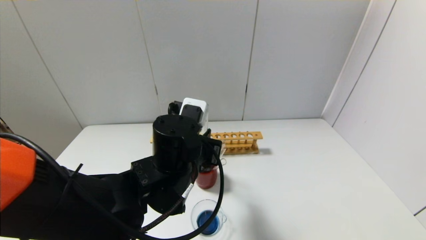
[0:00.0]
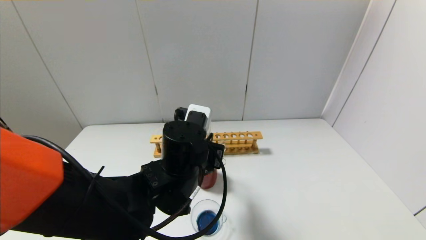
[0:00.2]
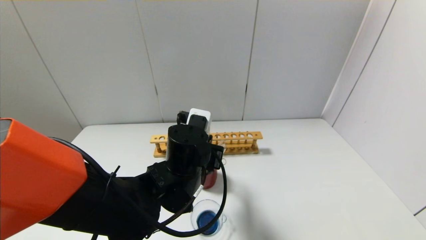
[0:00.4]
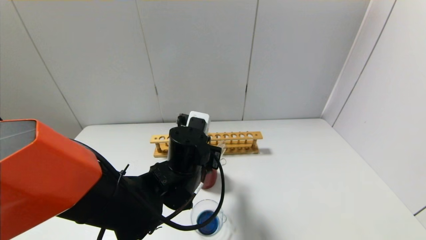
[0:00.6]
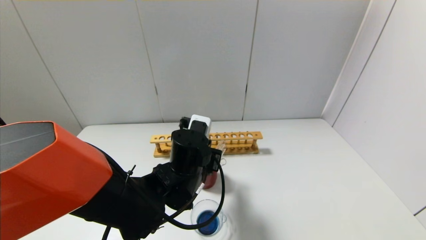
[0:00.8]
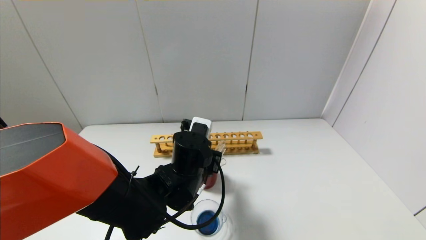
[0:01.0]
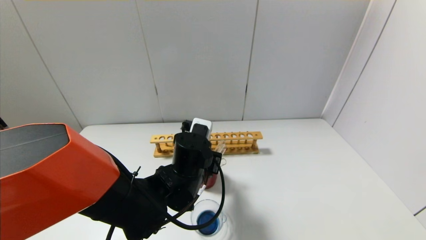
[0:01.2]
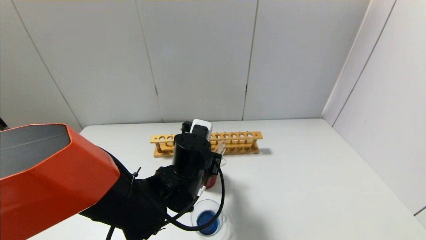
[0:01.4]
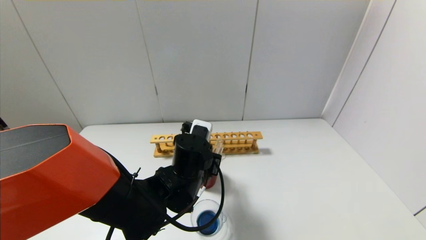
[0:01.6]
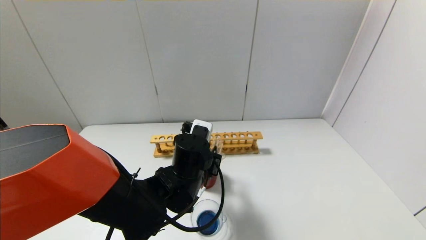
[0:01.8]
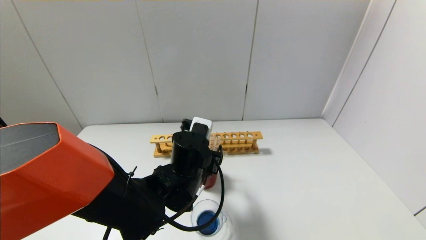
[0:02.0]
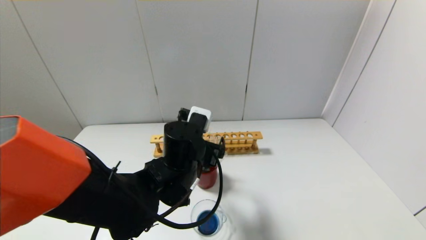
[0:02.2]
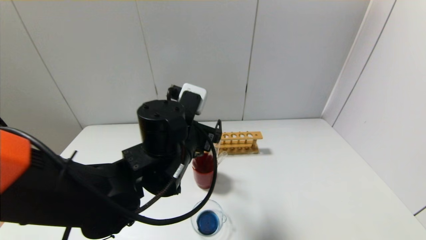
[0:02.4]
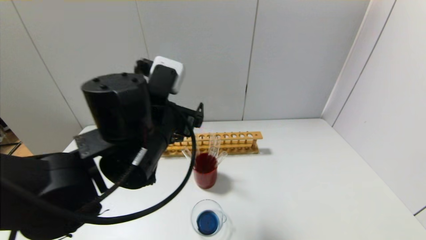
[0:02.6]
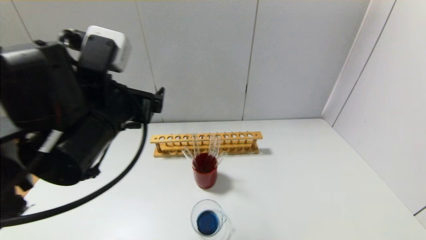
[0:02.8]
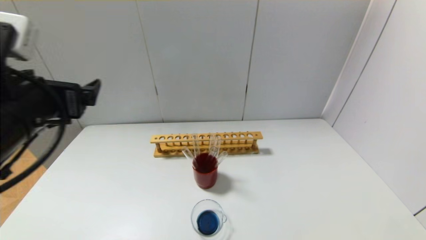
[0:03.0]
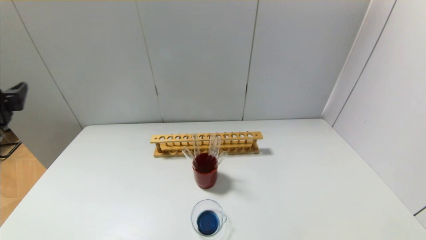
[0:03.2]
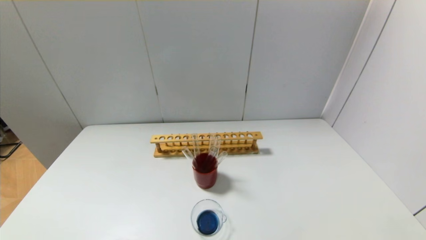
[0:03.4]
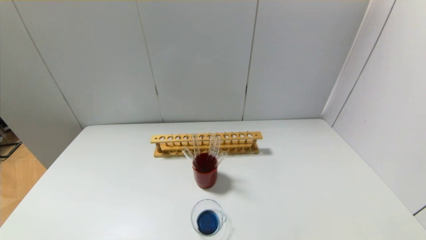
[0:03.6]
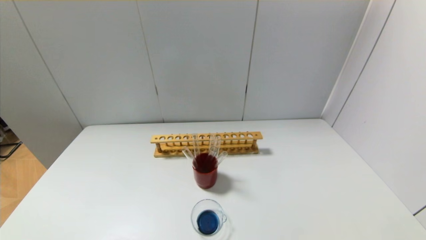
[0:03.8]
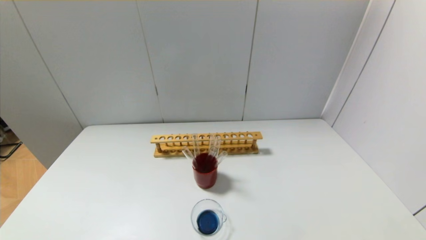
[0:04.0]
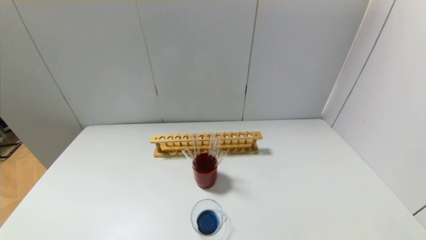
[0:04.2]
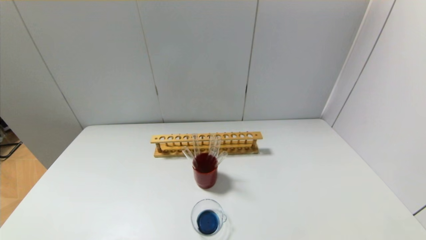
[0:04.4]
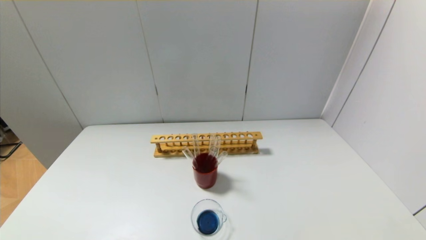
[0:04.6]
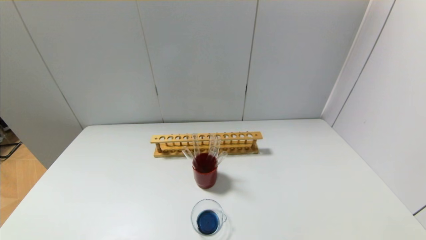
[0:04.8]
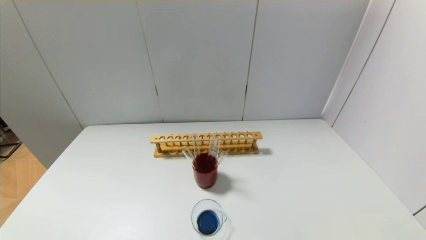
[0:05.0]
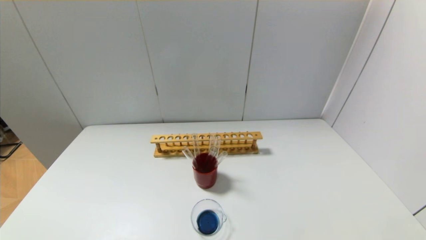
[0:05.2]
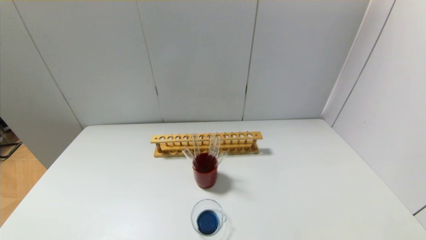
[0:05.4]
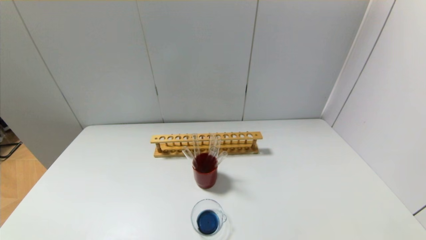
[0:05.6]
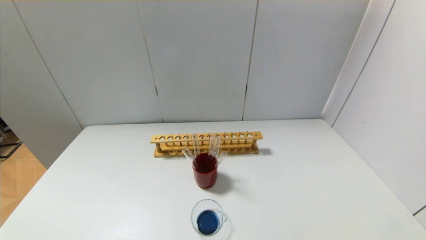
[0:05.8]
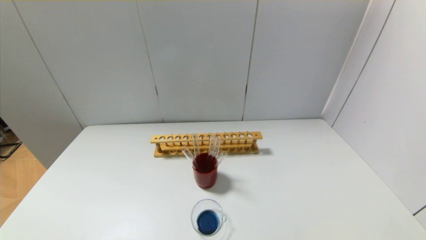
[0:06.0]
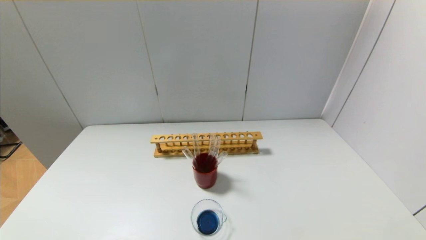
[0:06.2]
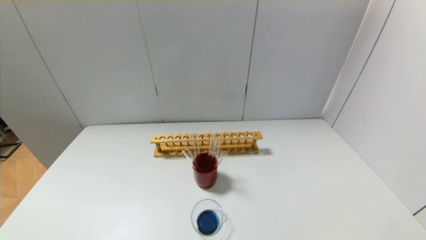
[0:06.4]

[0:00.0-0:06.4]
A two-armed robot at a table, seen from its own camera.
0:00.0 to 0:01.6: The left gripper moves downward, approximately 5 cm.
0:01.6 to 0:03.2: The left gripper goes about 35 cm to the left, upward and backward, and opens its fingers.
0:03.2 to 0:04.8: The left gripper moves downward and backward, approximately 25 cm.

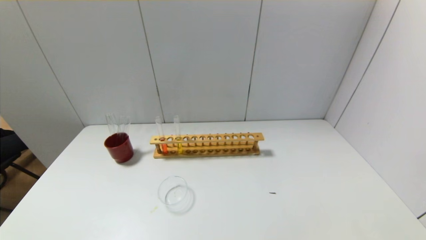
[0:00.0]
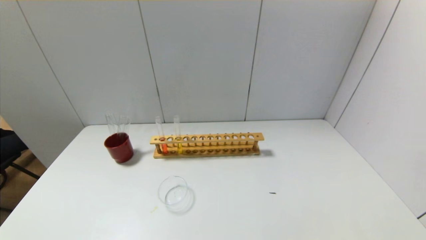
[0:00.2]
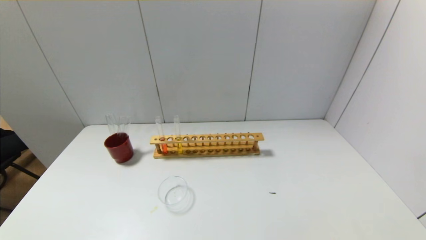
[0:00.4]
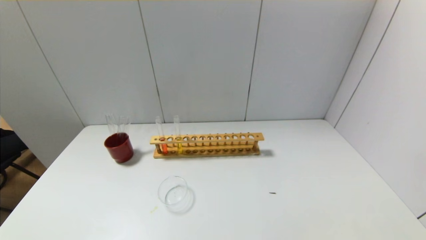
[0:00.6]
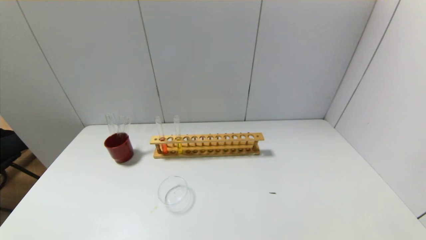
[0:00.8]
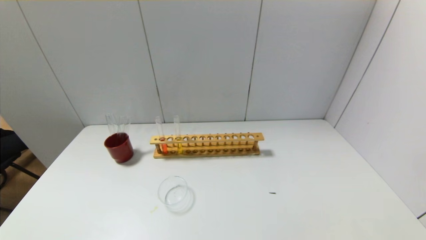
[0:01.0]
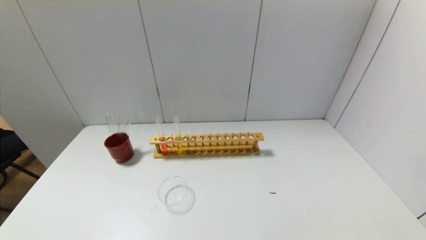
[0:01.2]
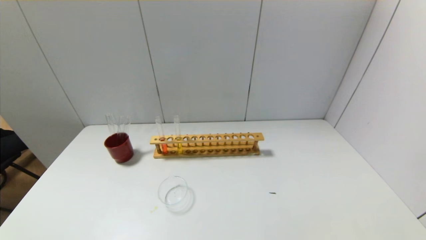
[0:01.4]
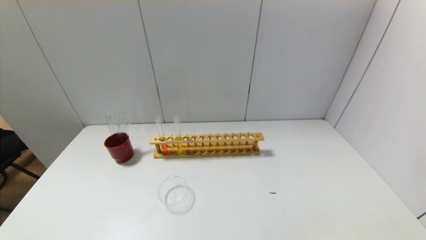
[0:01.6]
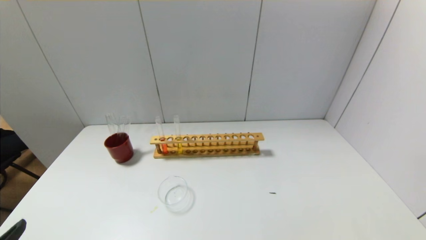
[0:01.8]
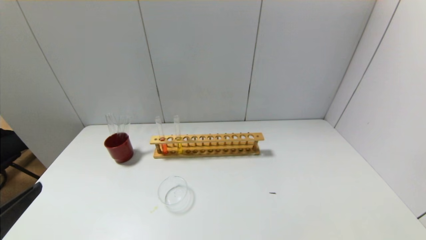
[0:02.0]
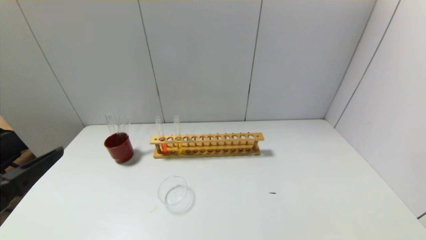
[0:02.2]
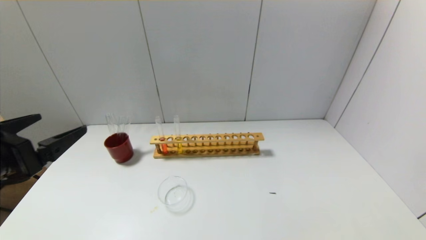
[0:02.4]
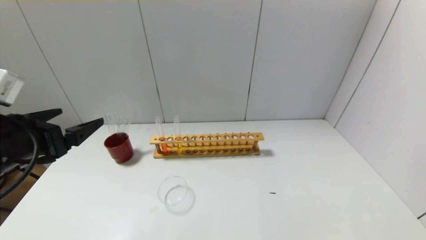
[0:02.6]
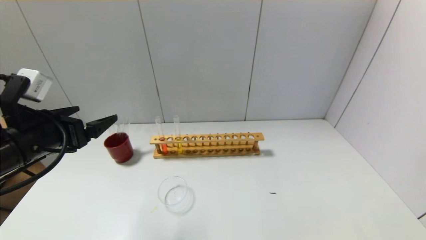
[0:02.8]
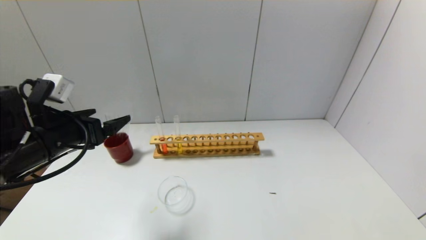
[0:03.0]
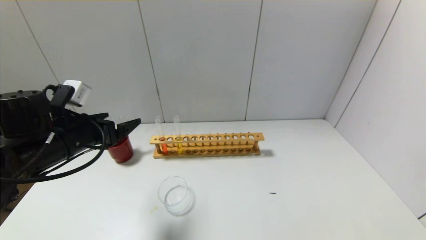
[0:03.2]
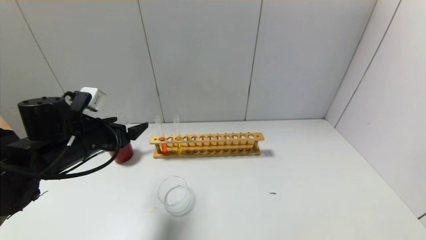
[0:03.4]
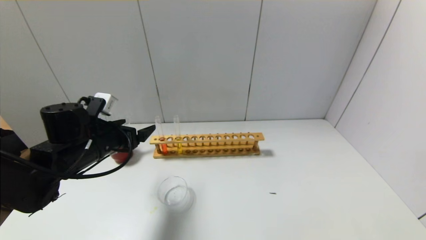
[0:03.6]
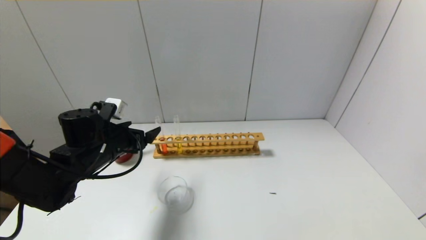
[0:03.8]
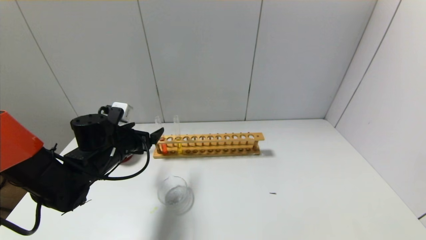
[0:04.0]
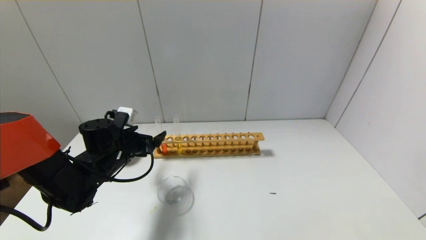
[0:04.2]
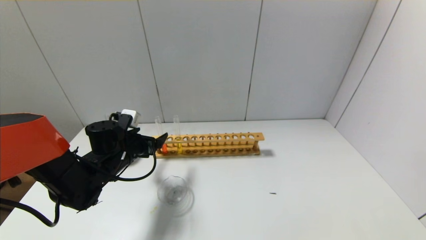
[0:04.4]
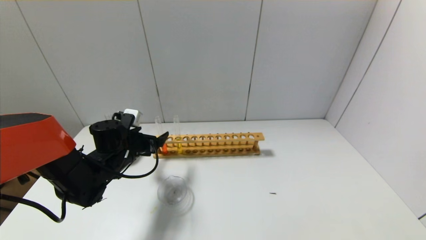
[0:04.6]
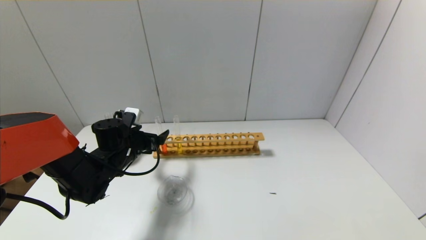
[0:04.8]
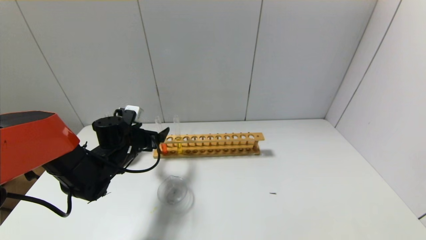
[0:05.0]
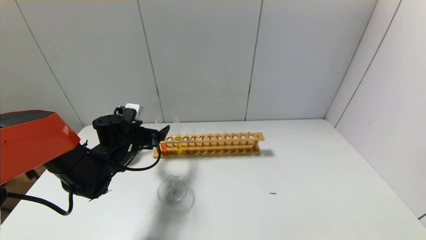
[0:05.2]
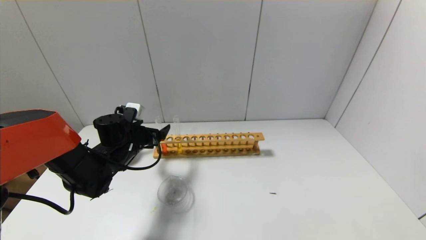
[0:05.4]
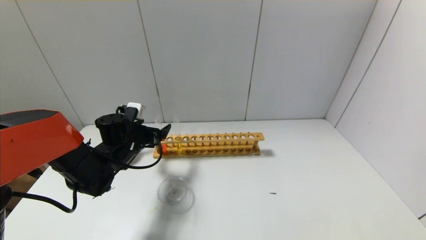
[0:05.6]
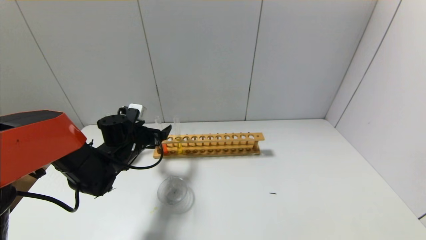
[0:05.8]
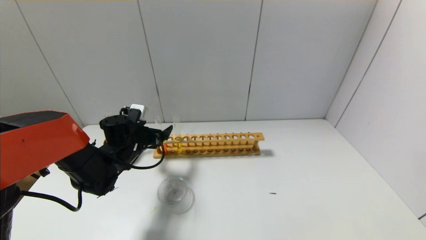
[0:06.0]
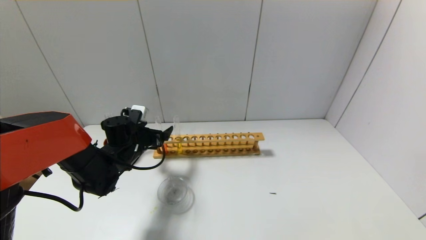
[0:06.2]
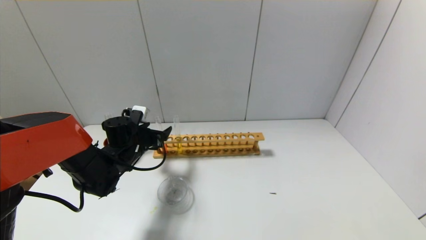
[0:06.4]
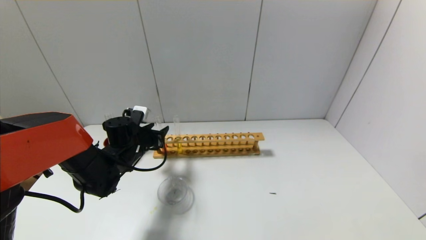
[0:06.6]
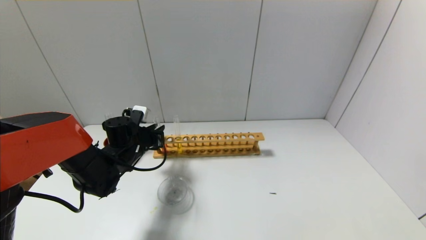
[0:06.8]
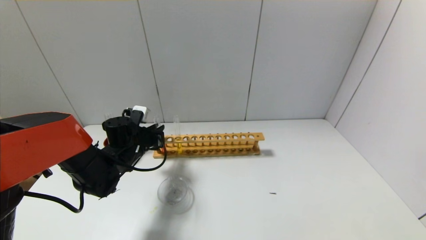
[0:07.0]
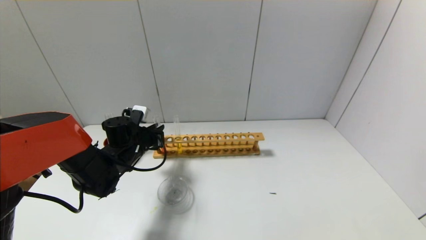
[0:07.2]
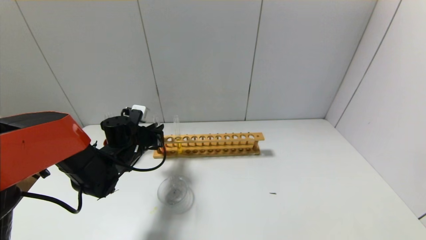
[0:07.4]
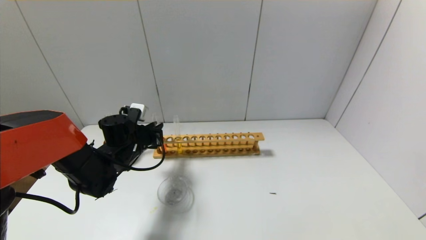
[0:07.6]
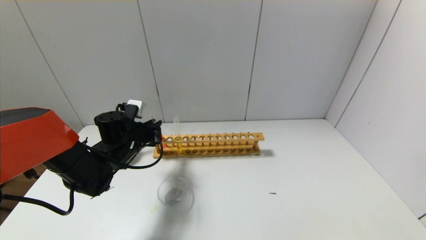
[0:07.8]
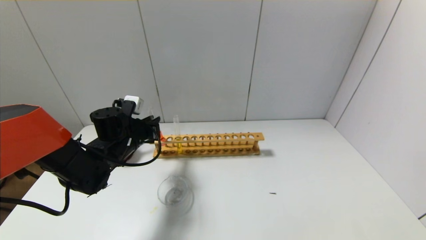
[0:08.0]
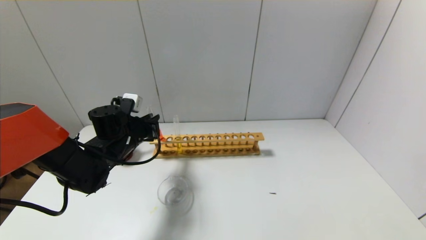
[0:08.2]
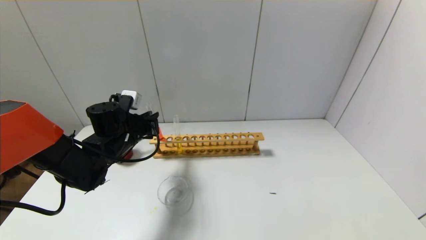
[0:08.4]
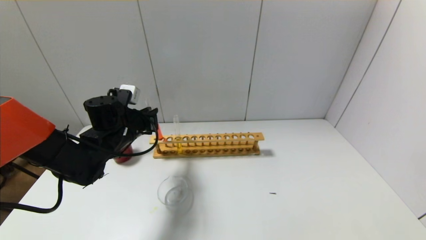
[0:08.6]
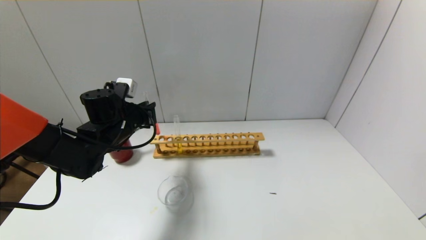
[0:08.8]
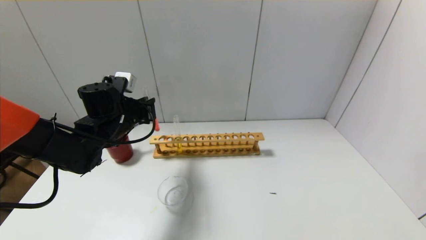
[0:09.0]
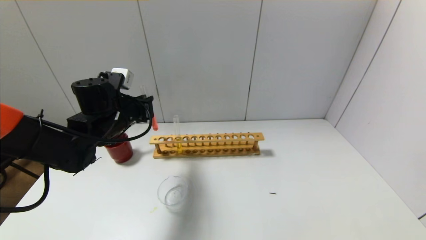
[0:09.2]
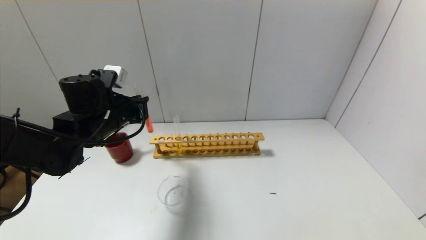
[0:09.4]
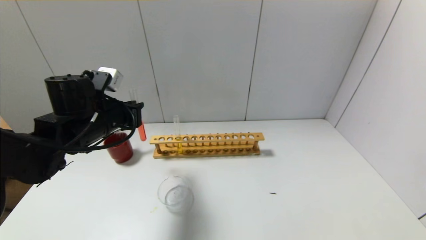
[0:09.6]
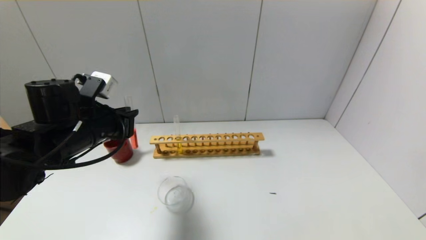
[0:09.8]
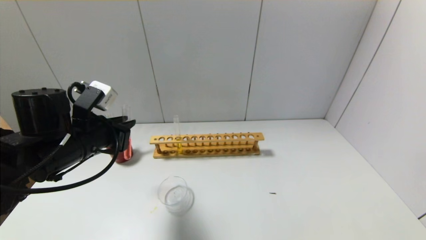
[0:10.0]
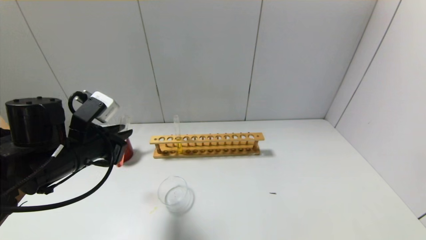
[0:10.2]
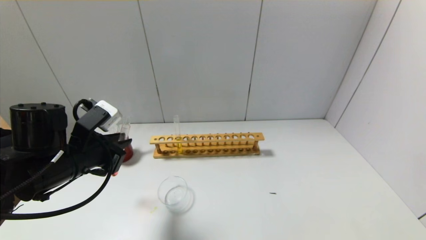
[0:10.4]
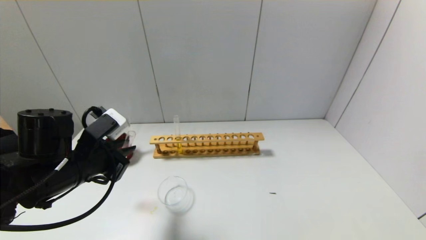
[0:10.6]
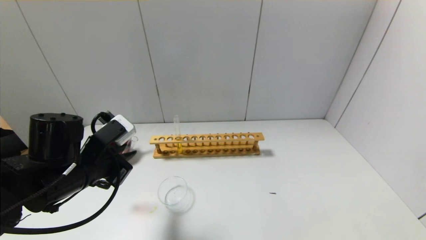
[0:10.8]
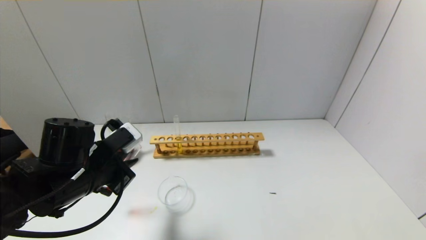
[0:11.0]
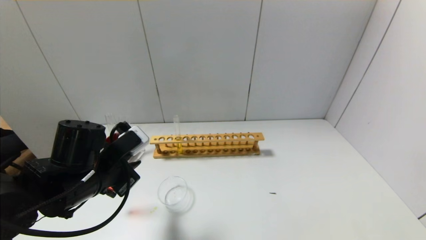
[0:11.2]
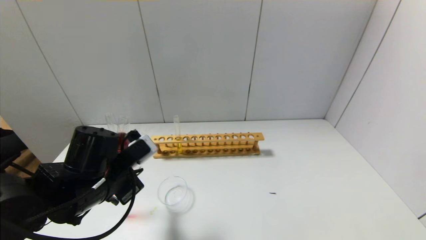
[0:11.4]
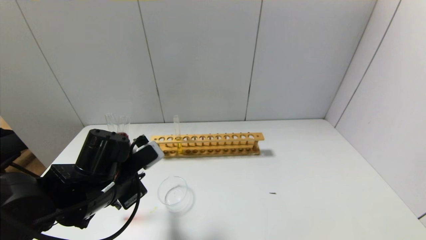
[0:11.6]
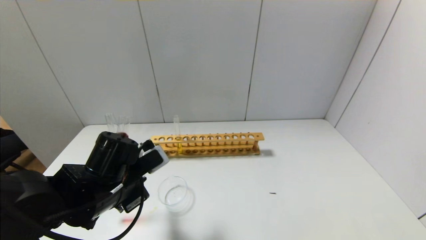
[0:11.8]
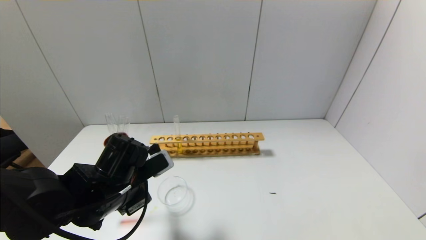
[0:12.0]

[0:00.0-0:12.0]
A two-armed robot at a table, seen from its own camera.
Step, 0:00.0 to 0:06.8: Grasp the red reagent with the left gripper.
0:01.6 to 0:03.0: The left gripper heads forward, covering about 25 cm.
0:03.0 to 0:04.4: The left gripper travels downward, forward and to the right by roughly 15 cm.
0:04.4 to 0:06.0: There are only small adjustments of the grippers.
0:06.0 to 0:07.6: The left gripper closes its fingers.
0:07.6 to 0:09.0: The left gripper moves upward, approximately 10 cm.
0:09.0 to 0:10.4: The left gripper travels backward by some 15 cm.
0:10.4 to 0:12.0: The left gripper moves to the right and downward, some 10 cm.
